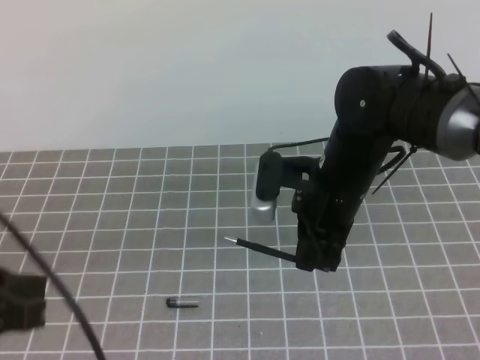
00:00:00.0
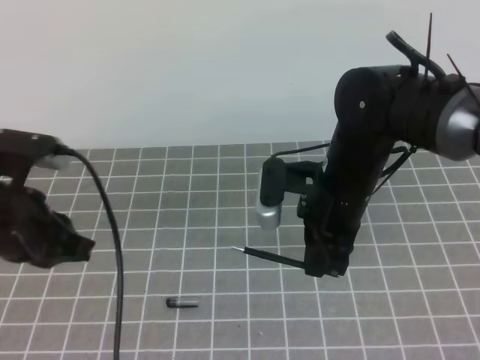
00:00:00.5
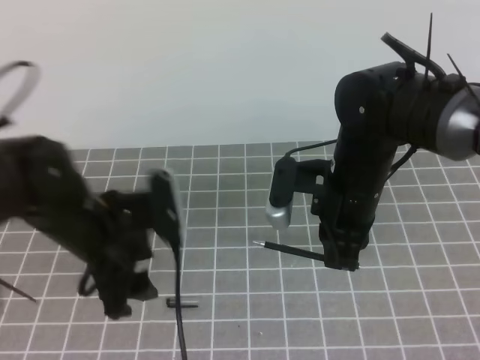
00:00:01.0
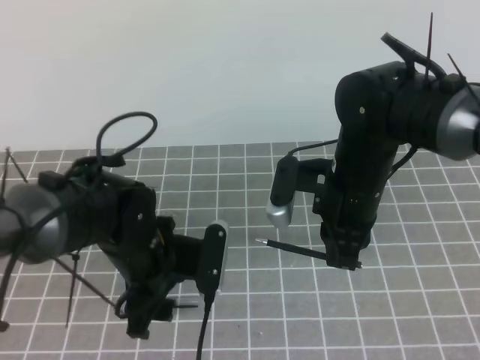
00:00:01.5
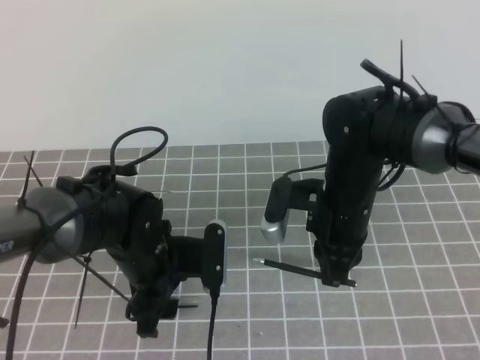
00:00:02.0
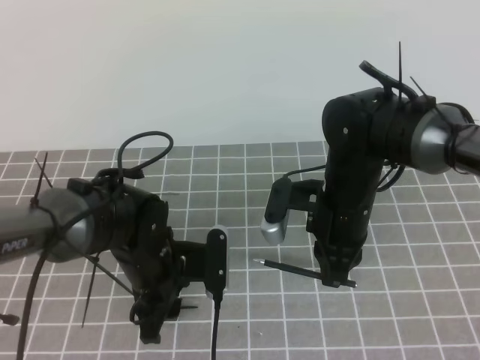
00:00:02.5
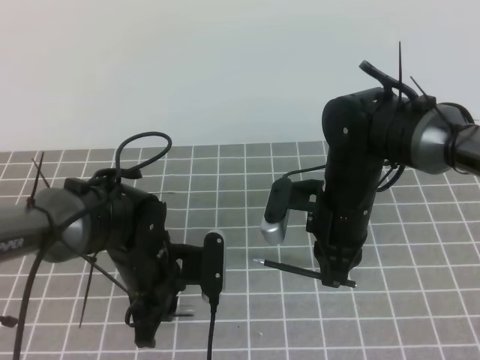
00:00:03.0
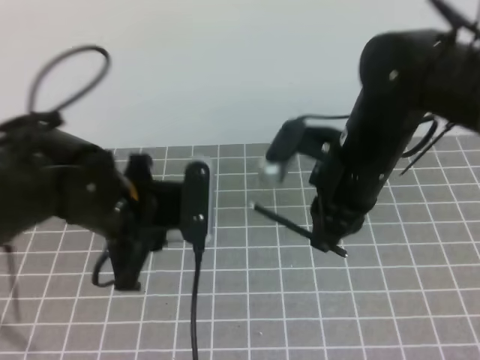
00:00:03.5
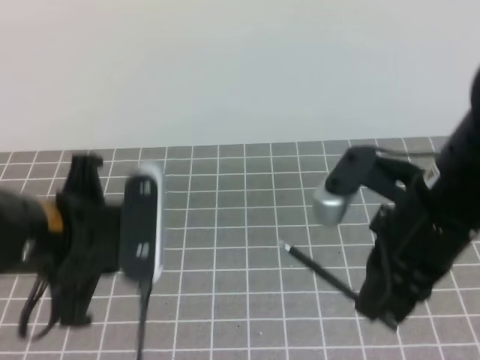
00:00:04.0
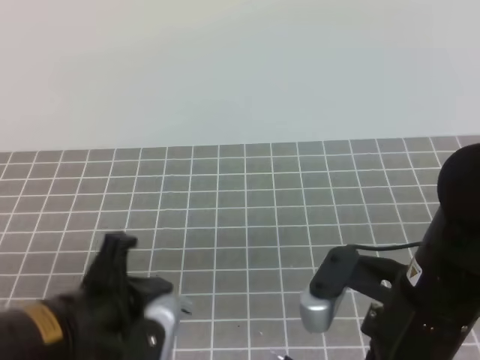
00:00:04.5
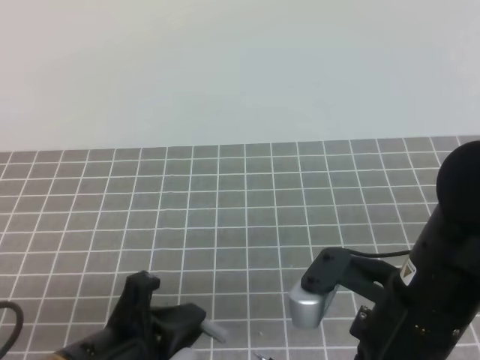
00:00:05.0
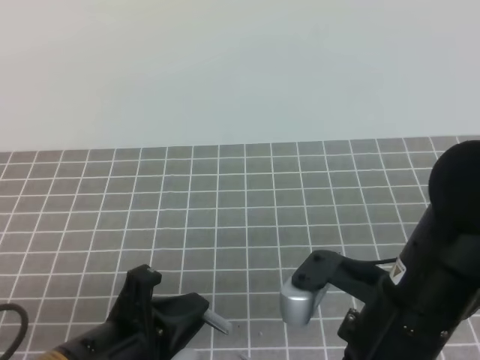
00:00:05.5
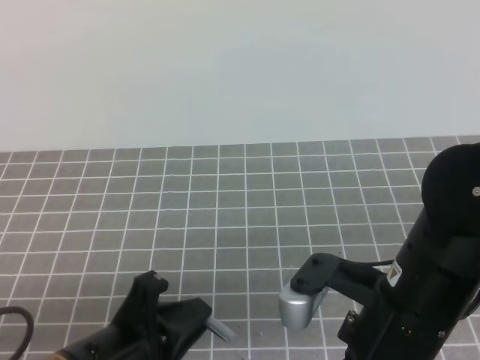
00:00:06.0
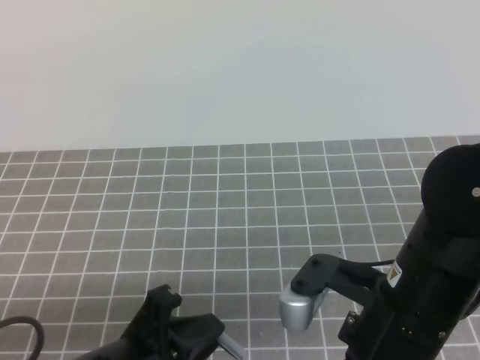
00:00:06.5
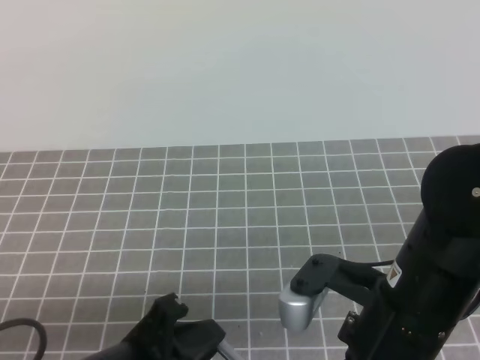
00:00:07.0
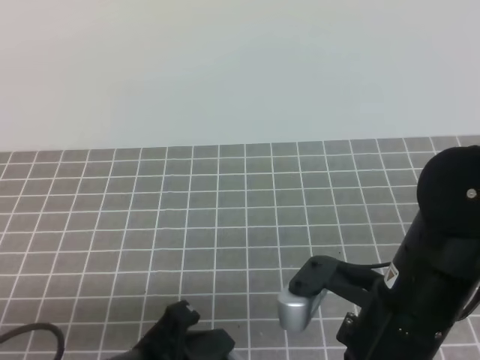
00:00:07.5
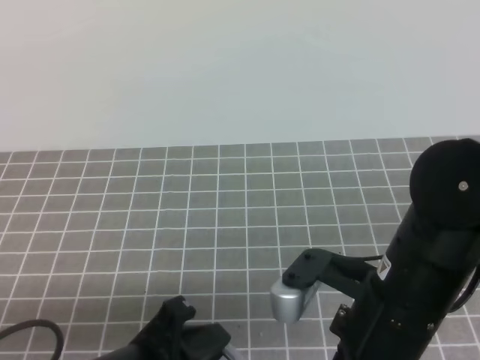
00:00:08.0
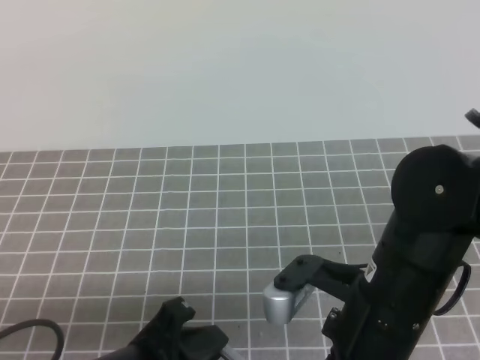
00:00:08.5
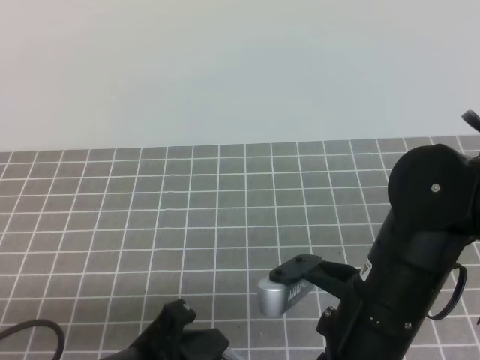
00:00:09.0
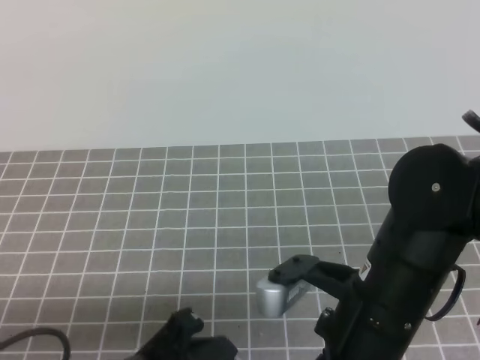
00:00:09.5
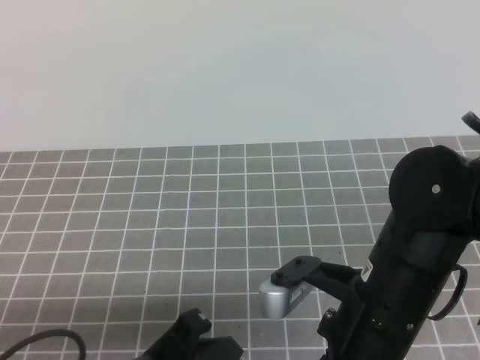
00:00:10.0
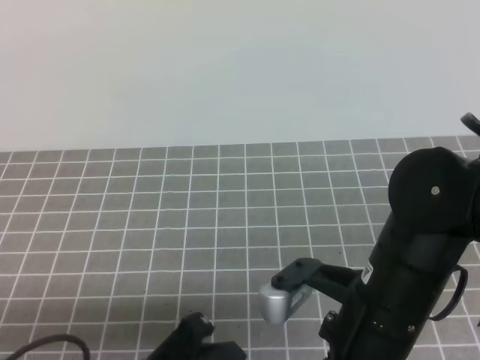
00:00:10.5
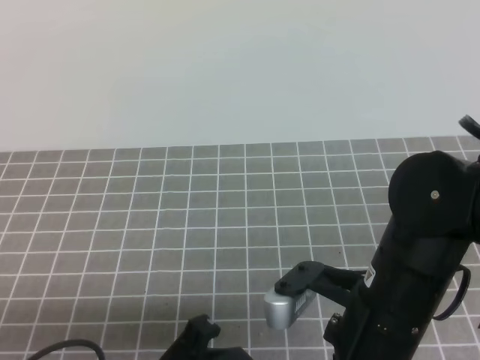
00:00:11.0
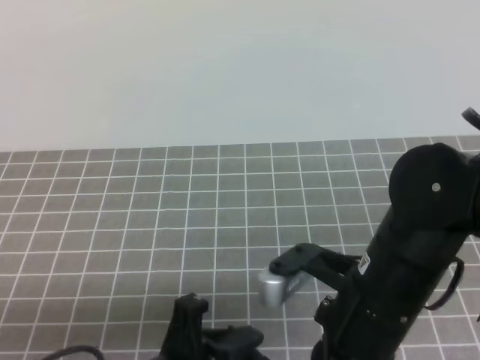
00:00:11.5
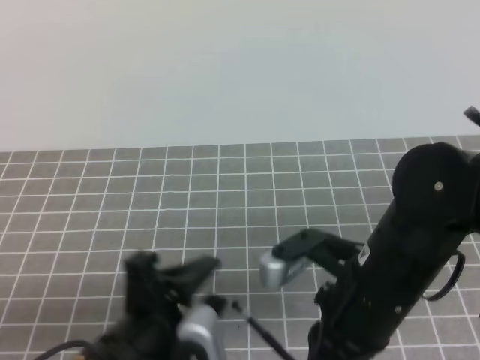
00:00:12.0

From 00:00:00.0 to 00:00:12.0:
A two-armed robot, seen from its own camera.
Task of the whole recording: on the grey tablecloth, hold the pen cap in one hand and the pen in the other, then cover the pen cap.
From 00:00:00.0 to 00:00:02.0: The left gripper moves forward, downward and to the right, roughly 25 cm, and opens its fingers.
From 00:00:02.0 to 00:00:04.0: The left gripper heads upward and backward, covering roughly 15 cm, and closes up. The right gripper is displaced backward and upward by some 15 cm.
From 00:00:04.0 to 00:00:06.0: The right gripper moves backward, roughly 5 cm. Meanwhile the left gripper heads backward and downward, covering approximately 10 cm.
From 00:00:06.0 to 00:00:10.0: The grippers make only small movements.
From 00:00:10.0 to 00:00:12.0: The left gripper opens up.

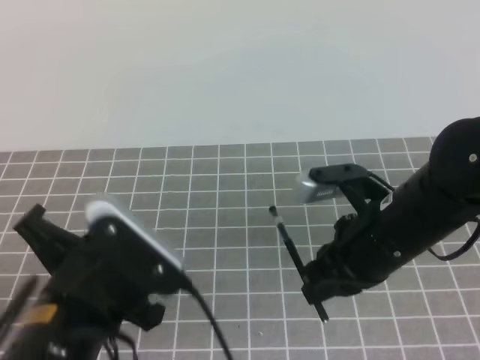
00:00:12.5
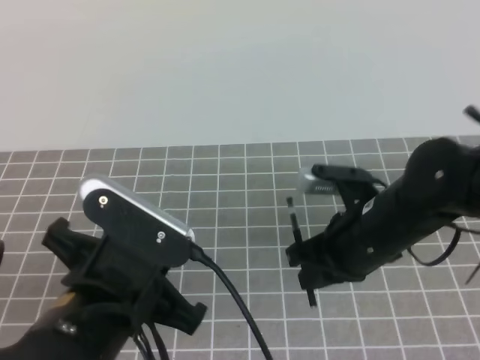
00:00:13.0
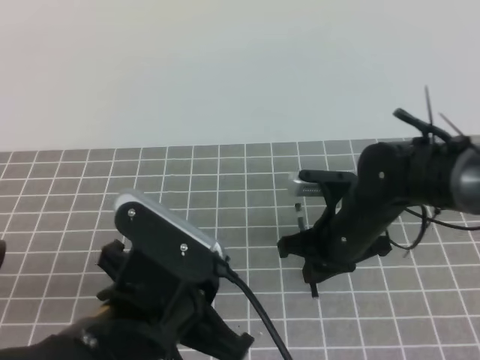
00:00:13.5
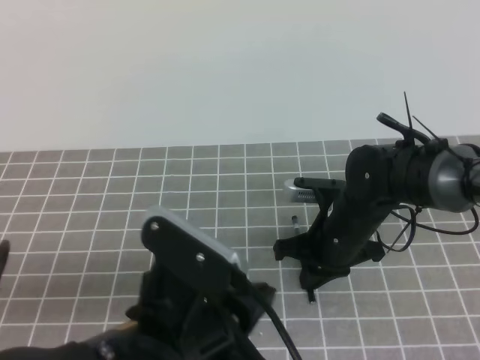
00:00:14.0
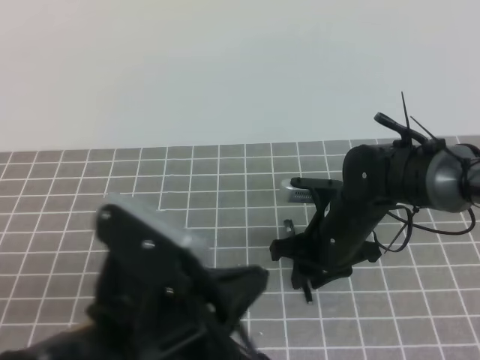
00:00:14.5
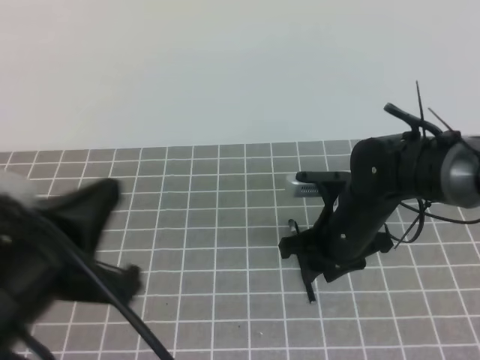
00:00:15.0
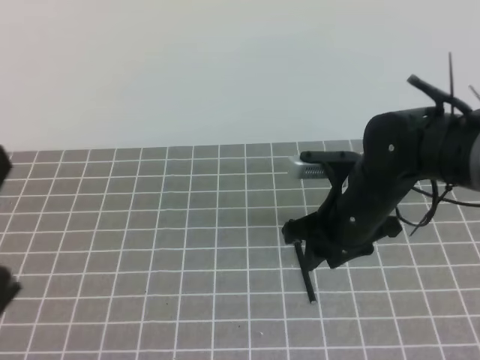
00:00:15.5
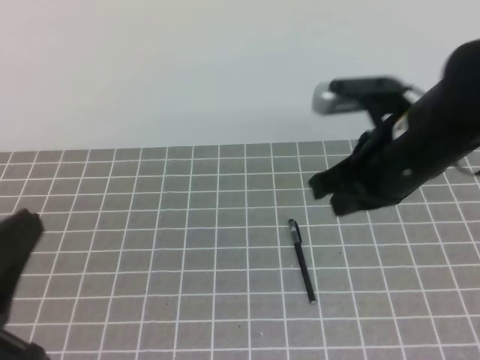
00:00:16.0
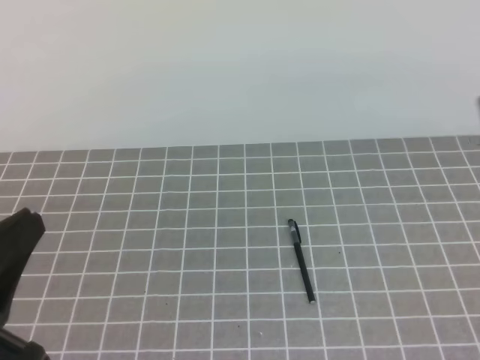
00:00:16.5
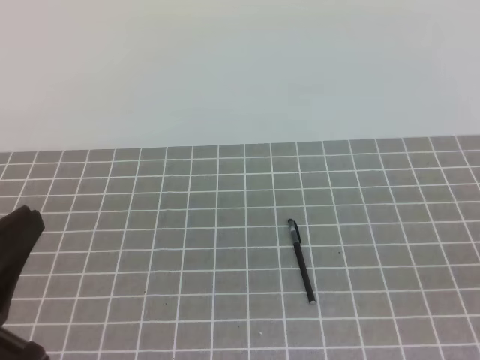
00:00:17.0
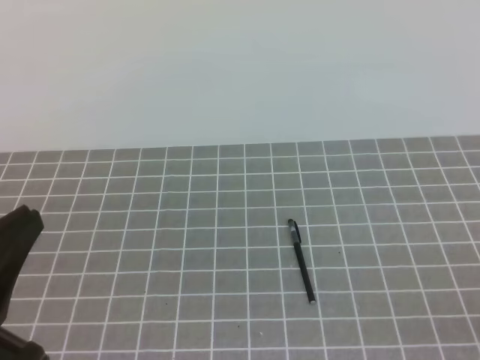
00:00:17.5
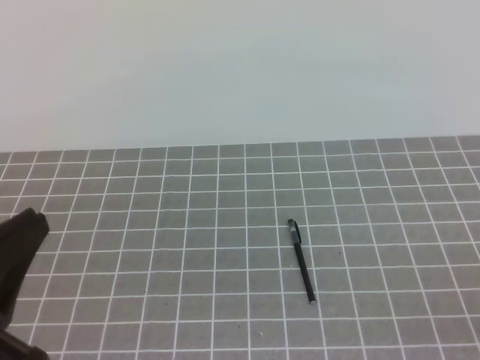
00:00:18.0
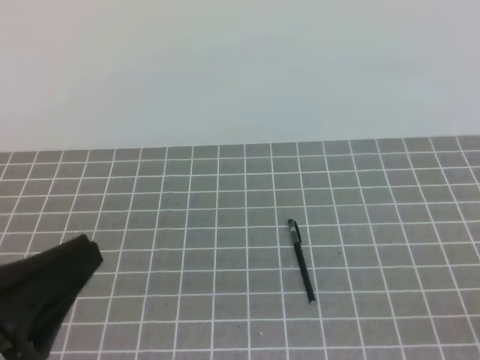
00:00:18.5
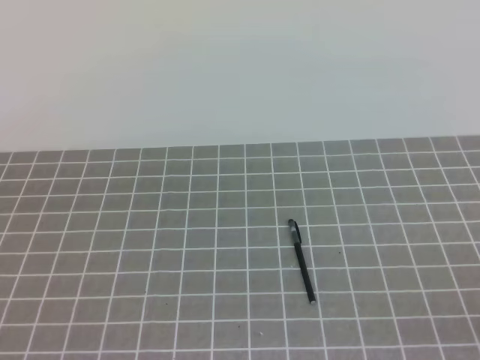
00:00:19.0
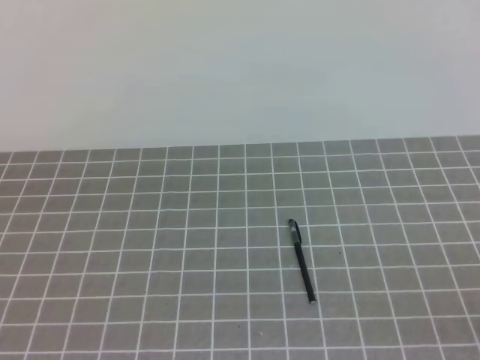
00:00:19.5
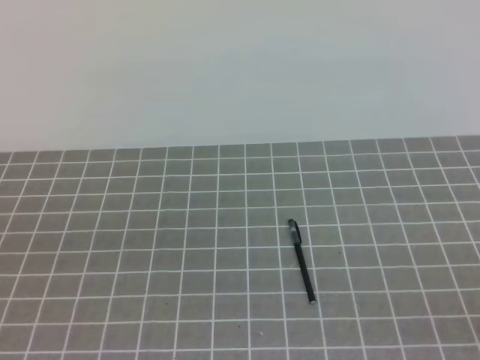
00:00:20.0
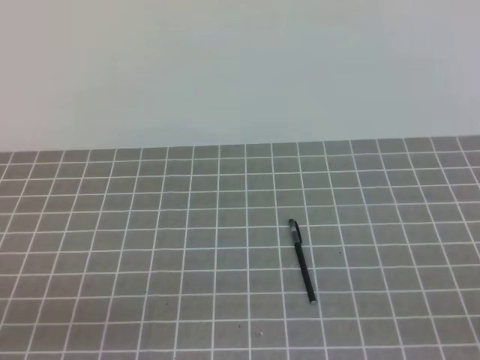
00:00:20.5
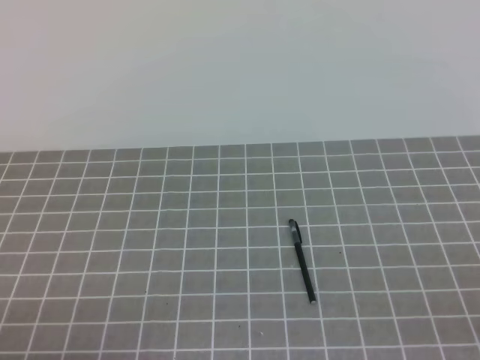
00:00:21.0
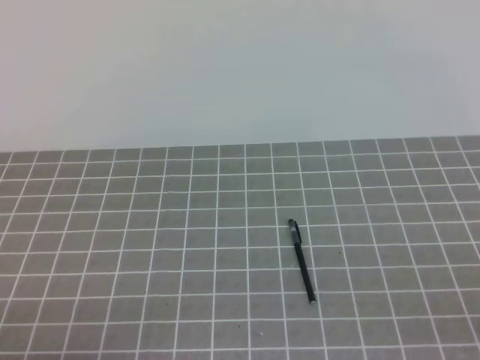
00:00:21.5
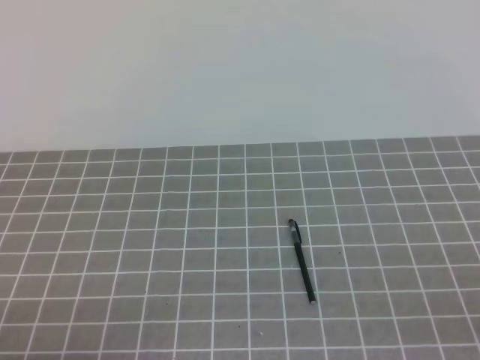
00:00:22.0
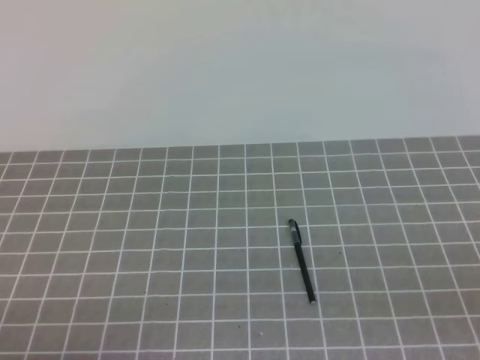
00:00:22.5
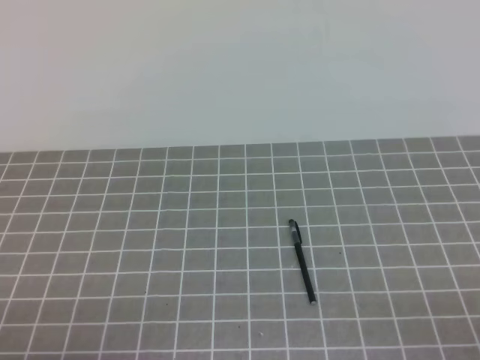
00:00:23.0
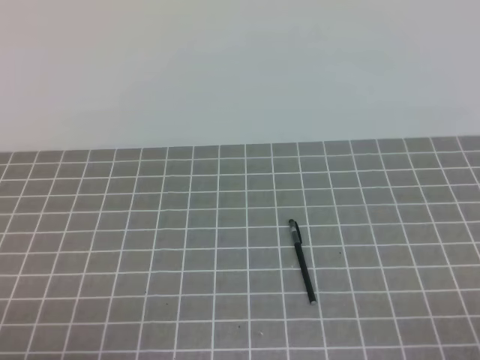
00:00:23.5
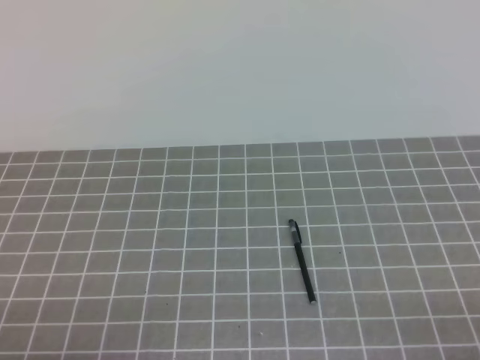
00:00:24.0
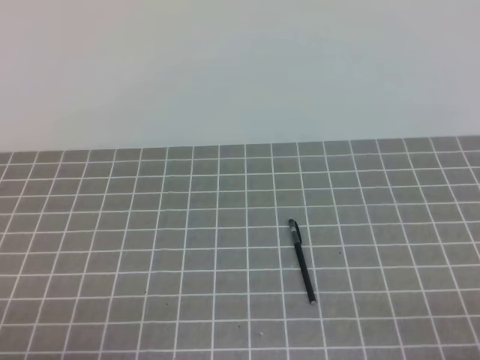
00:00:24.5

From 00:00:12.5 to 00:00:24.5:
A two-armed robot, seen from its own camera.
Task of the whole recording: on the grey tablecloth, hold the pen cap in one hand and the pen in the other, then cover the pen cap.
Step, from 00:00:12.5 to 00:00:24.5: Put the cap on the pen.
From 00:00:12.5 to 00:00:14.5: The right gripper travels downward and forward by about 15 cm, and opens its fingers. Meanwhile the left gripper shifts by approximately 5 cm.
From 00:00:14.5 to 00:00:16.5: The right gripper shifts about 35 cm upward, backward and to the right, and closes, while the left gripper heads to the left, covering roughly 10 cm.
From 00:00:18.5 to 00:00:20.5: The left gripper moves downward and to the left, some 10 cm.
